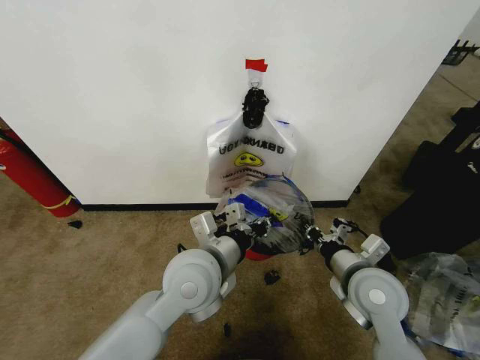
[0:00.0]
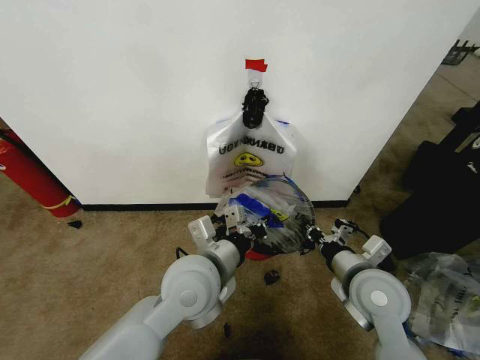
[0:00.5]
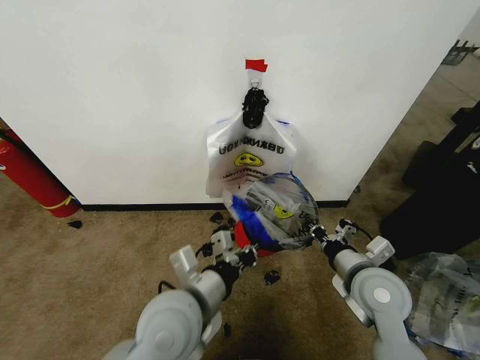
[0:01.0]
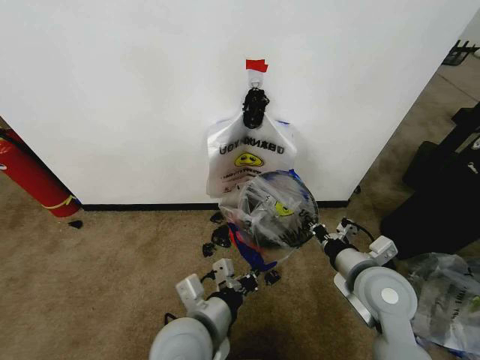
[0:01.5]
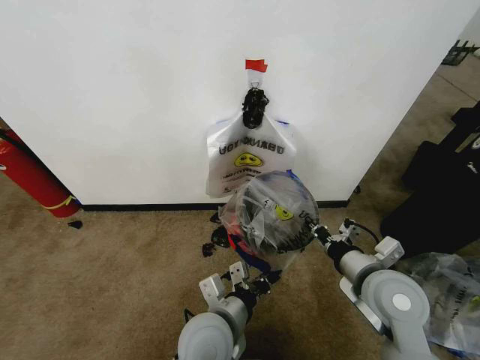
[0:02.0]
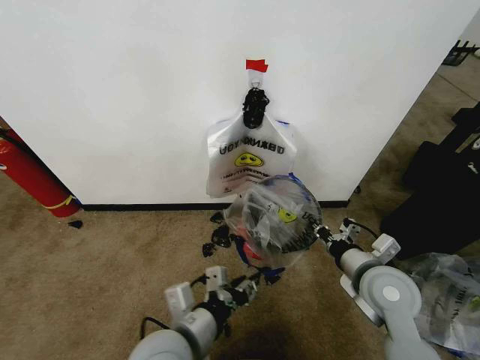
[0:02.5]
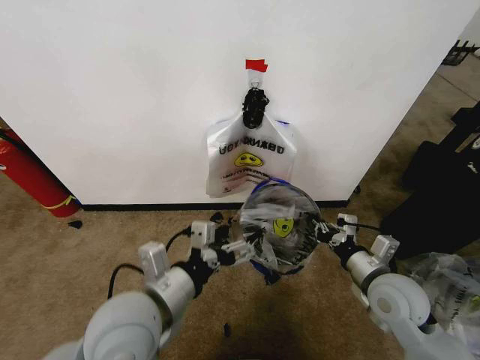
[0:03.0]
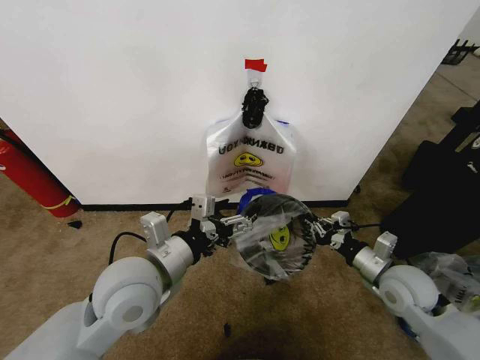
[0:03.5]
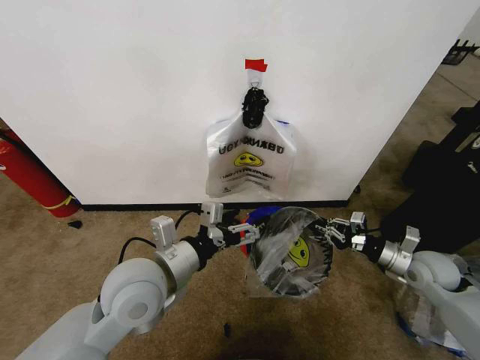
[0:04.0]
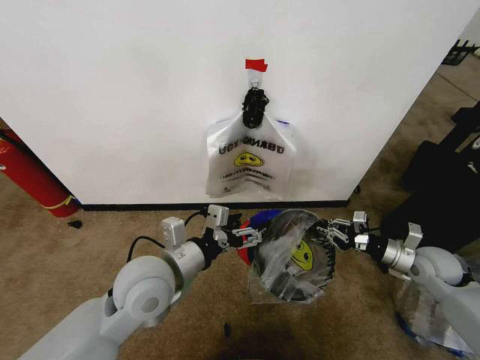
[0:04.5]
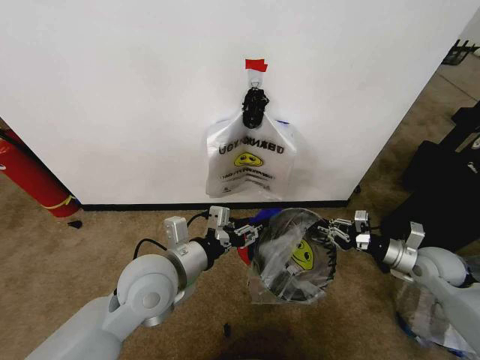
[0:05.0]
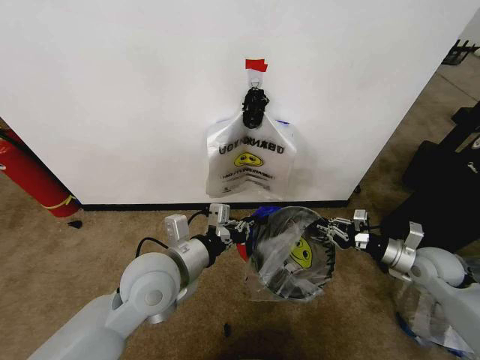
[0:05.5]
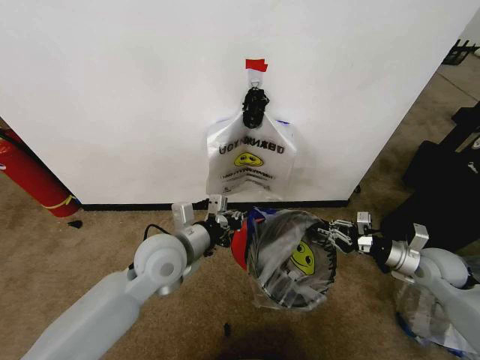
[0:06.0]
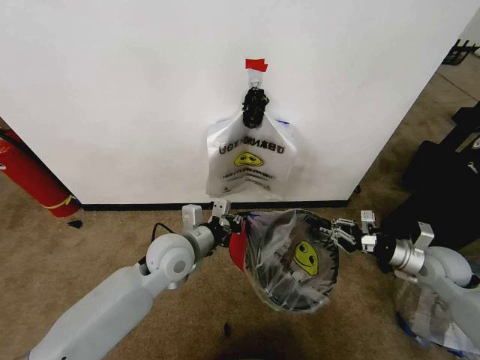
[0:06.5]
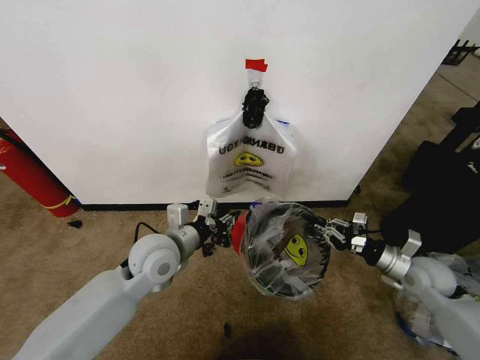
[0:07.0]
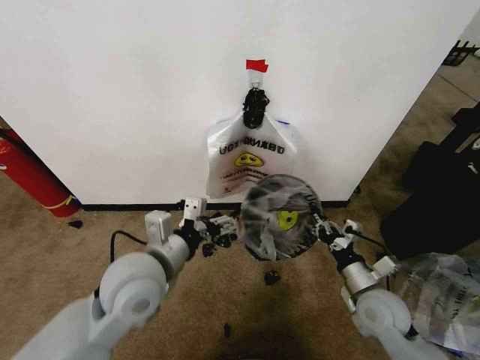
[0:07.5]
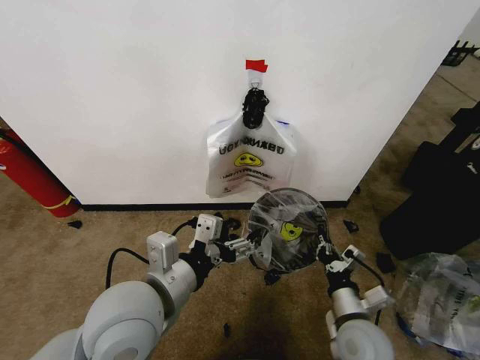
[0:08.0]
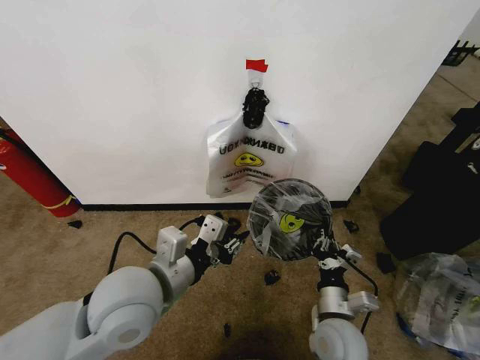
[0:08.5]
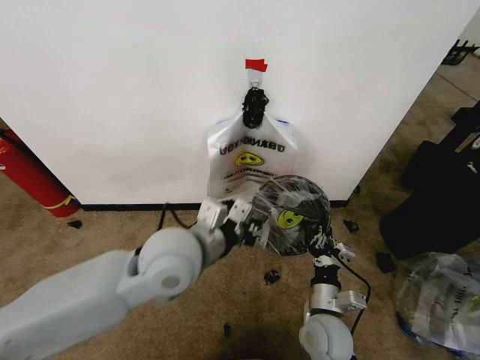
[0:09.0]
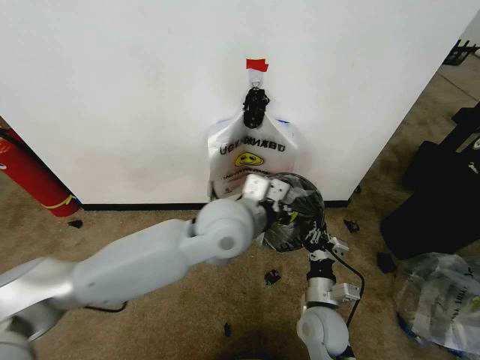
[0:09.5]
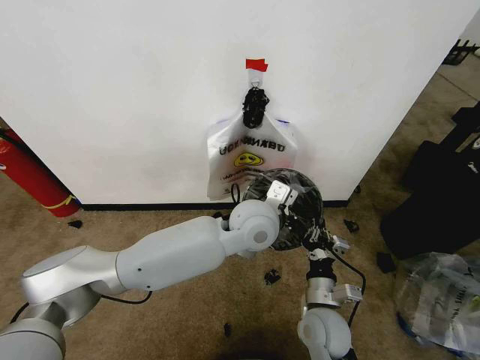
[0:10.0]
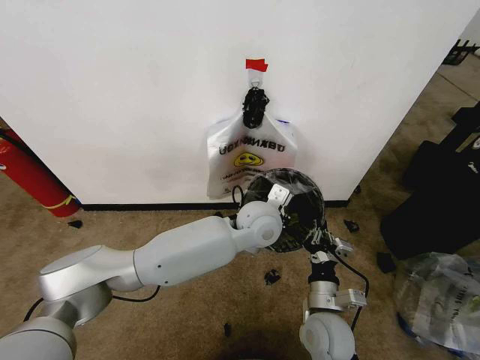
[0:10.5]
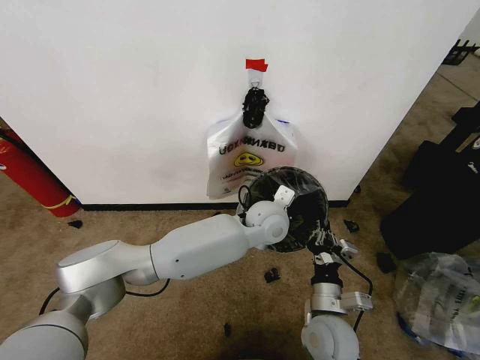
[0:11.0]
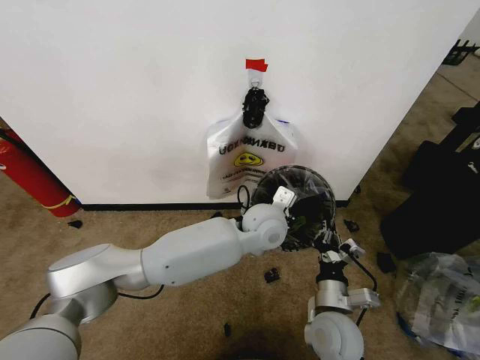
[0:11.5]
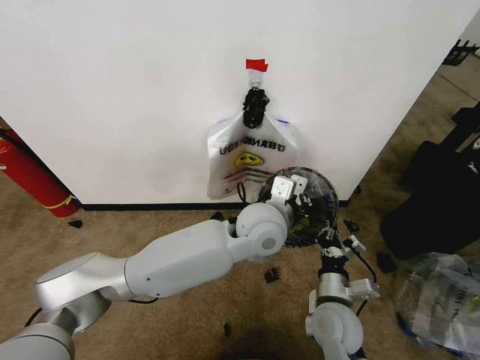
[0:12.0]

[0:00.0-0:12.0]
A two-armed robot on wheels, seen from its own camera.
Task of the whole recording: Pick up the garbage bag from the wall and place it over the trash bin.
0:00.0 to 0:02.0: The left gripper travels downward and backward by roughly 10 cm.
0:02.0 to 0:04.0: The right gripper goes some 20 cm to the right, forward and downward. Meanwhile the left gripper is displaced to the left and upward by approximately 15 cm, and opens up.
0:04.0 to 0:06.0: The left gripper is displaced forward by some 5 cm, and closes up.
0:06.0 to 0:08.0: The right gripper goes some 25 cm to the left and backward. Meanwhile the left gripper is displaced backward and upward by roughly 15 cm, and opens.
0:08.0 to 0:10.0: The left gripper moves to the right and forward, approximately 25 cm, and closes. Meanwhile the right gripper shifts roughly 5 cm to the left.

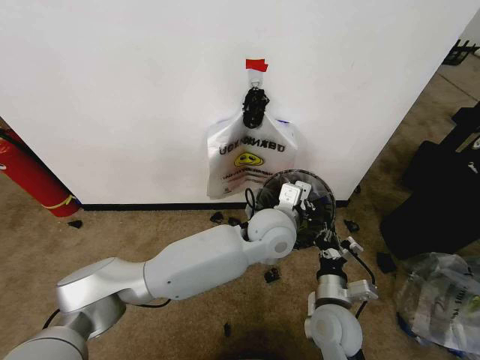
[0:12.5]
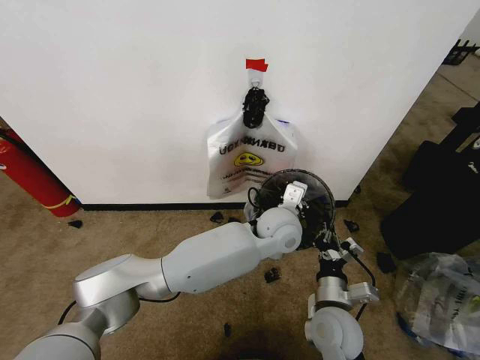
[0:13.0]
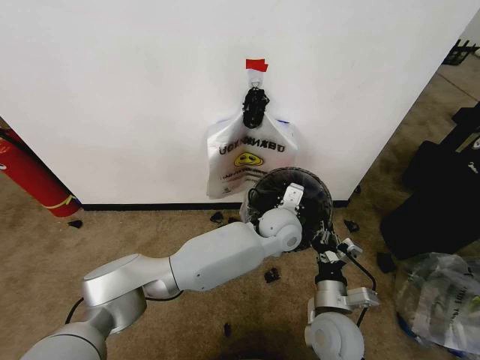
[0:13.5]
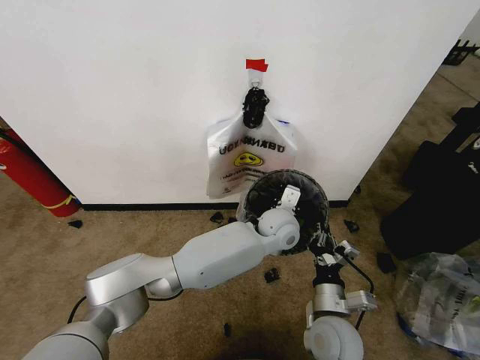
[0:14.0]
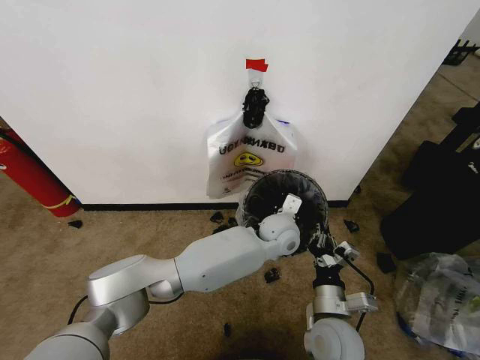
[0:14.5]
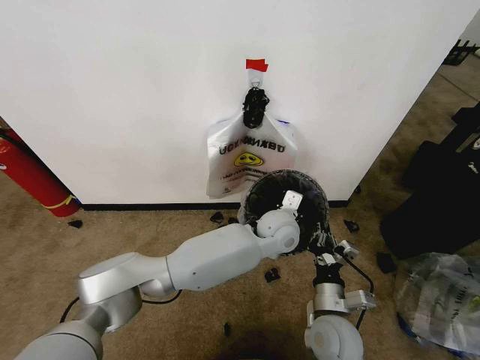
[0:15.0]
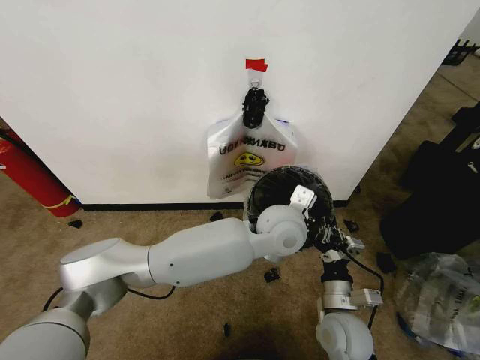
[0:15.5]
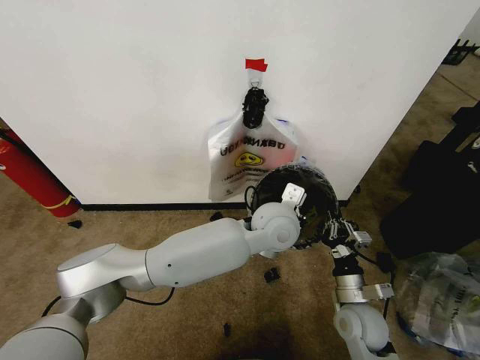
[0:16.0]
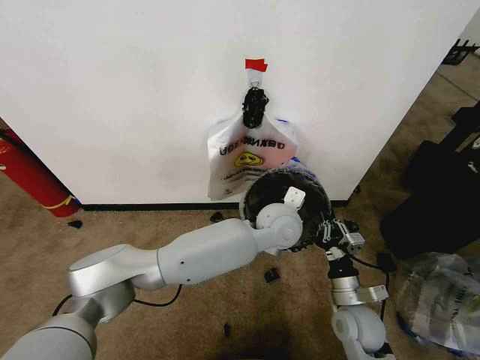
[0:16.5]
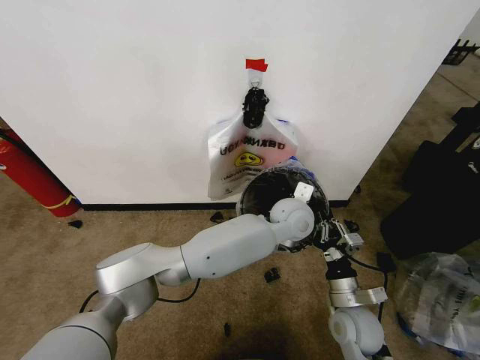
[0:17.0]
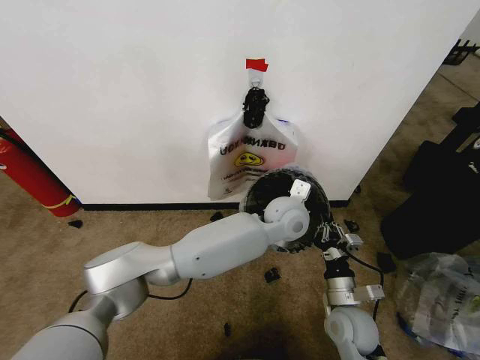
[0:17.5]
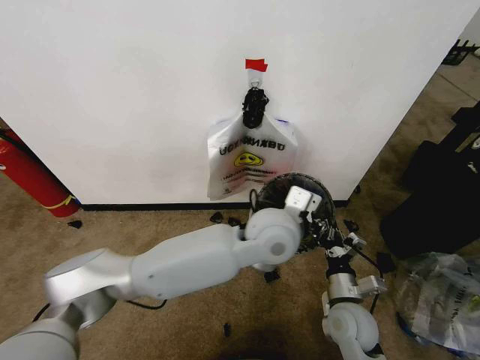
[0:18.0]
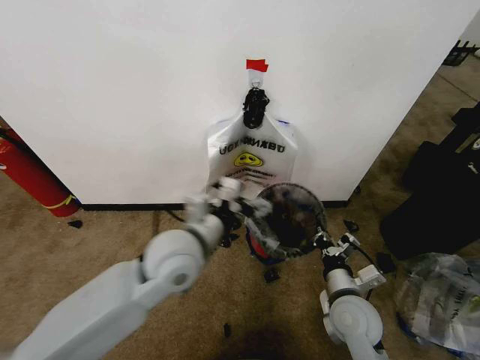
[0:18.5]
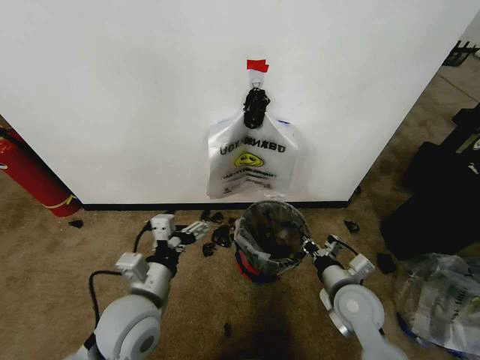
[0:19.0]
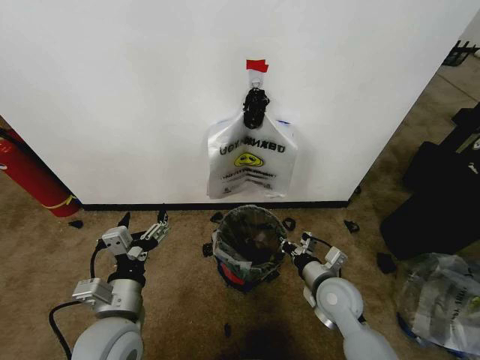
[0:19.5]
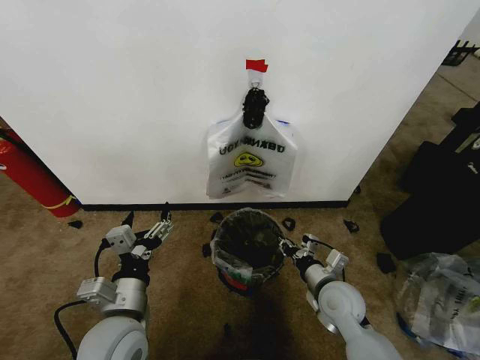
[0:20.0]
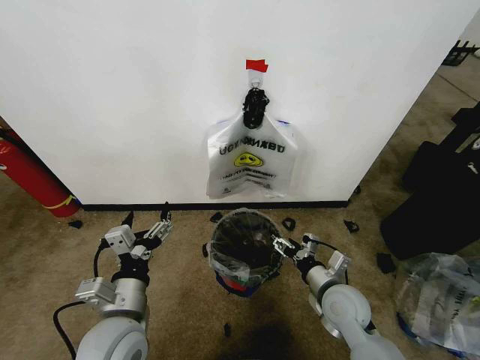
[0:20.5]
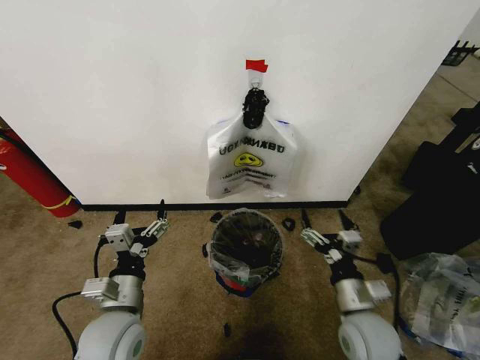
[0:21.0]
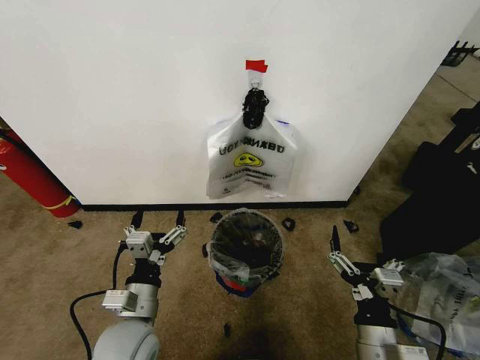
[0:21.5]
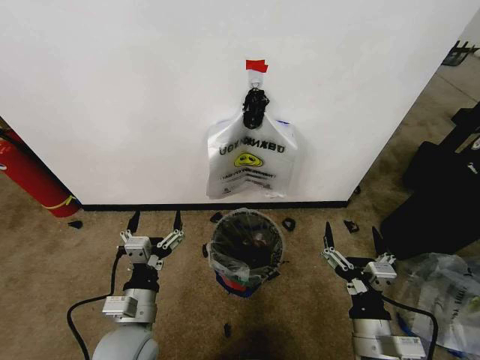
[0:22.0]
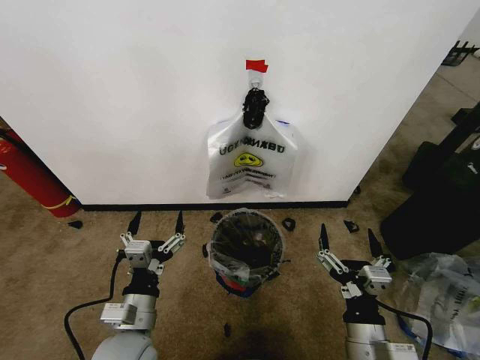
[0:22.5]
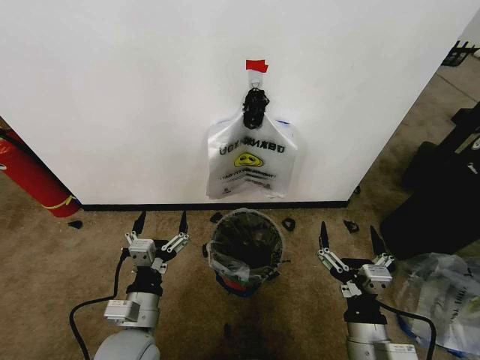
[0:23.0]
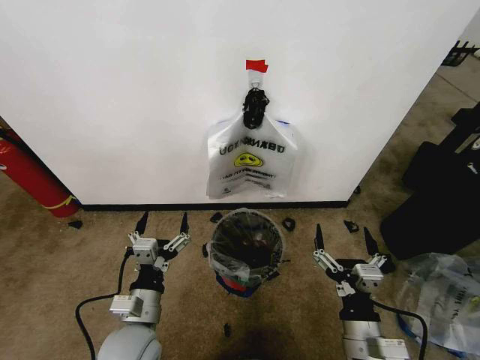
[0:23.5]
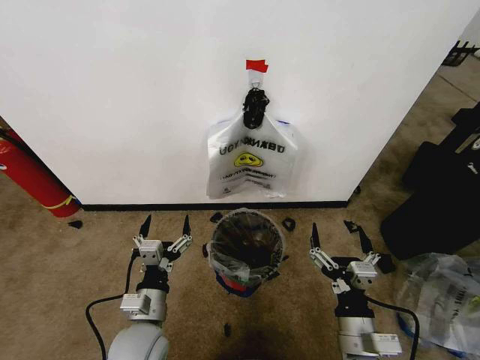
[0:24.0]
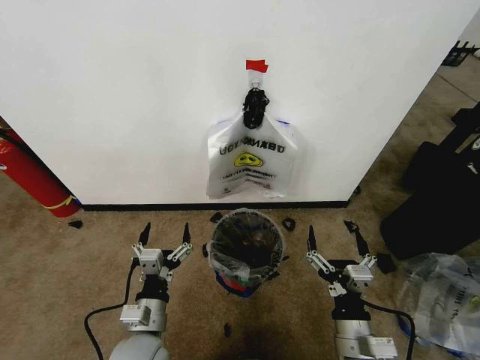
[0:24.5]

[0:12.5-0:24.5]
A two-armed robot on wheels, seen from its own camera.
Task of the whole recording: Pick up the garbage bag from the wall and place it over the trash bin.
0:12.5 to 0:14.5: The left gripper travels downward and forward by about 10 cm.
0:14.5 to 0:16.5: The right gripper shifts approximately 5 cm to the right. Meanwhile the left gripper moves upward, roughly 5 cm.
0:16.5 to 0:18.5: The left gripper shifts approximately 20 cm to the left and backward, and opens its fingers.
0:18.5 to 0:20.5: The right gripper opens up; the left gripper goes approximately 15 cm backward, to the left and downward.
0:20.5 to 0:22.5: The right gripper is displaced backward by approximately 15 cm.
0:22.5 to 0:24.5: The grippers stay close to where they were, moving slightly.

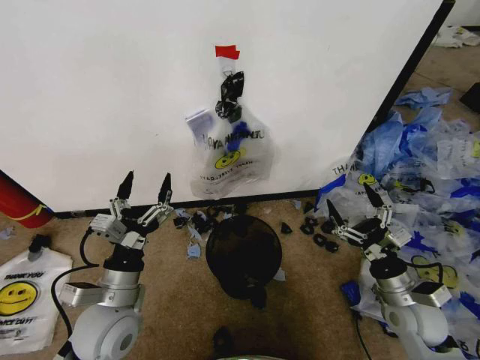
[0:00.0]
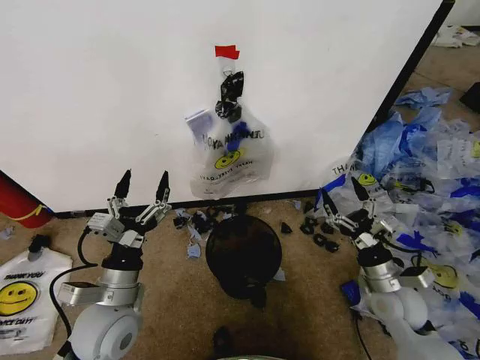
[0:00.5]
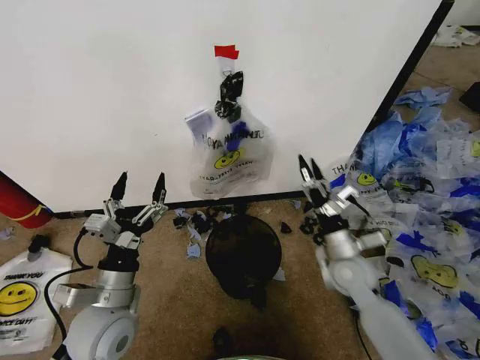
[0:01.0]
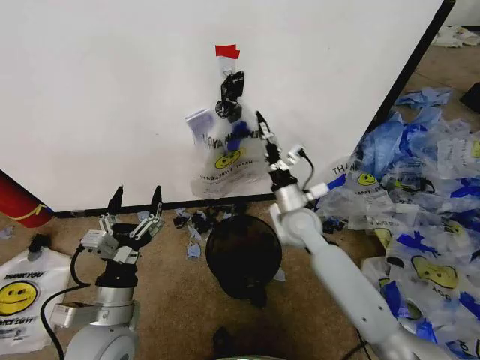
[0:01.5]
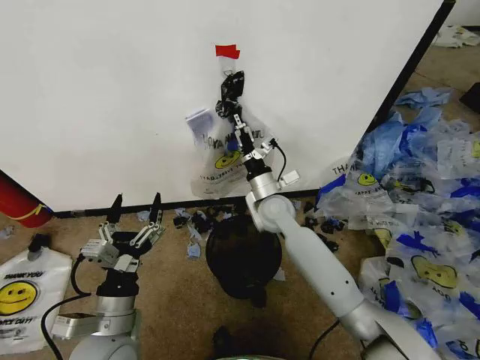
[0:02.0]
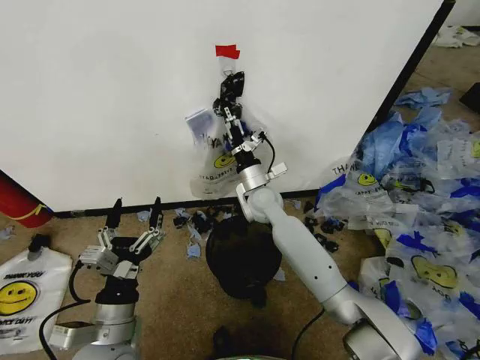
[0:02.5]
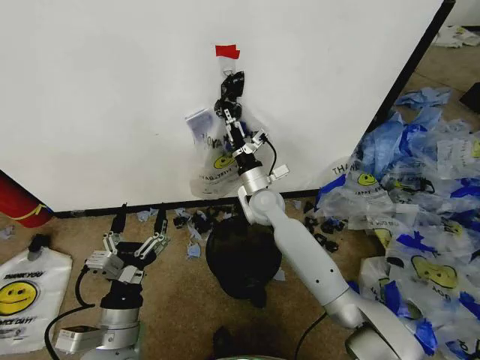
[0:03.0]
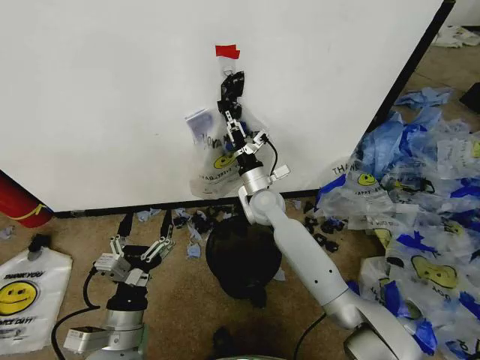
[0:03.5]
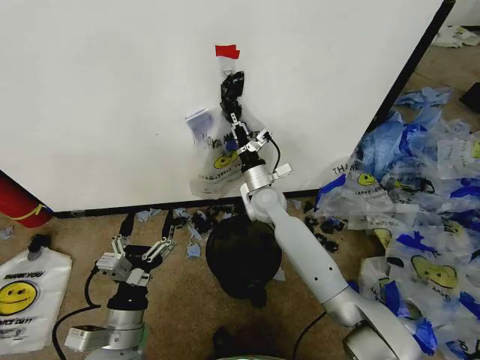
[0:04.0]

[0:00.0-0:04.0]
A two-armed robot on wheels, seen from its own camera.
Task of the whole recording: Pick up the garbage bag from the wall and place it over the trash bin.
0:02.0 to 0:04.0: The right gripper closes its fingers.
